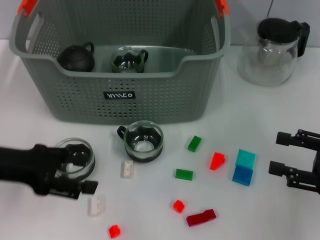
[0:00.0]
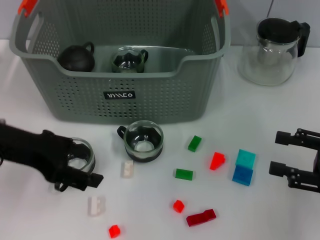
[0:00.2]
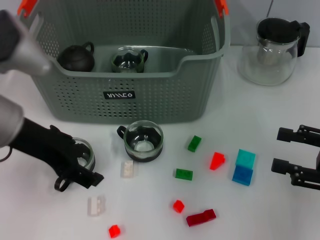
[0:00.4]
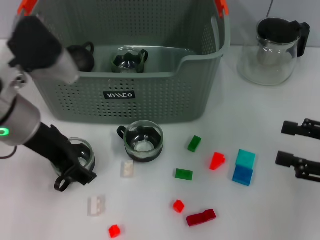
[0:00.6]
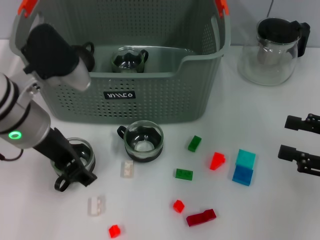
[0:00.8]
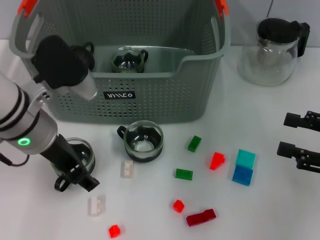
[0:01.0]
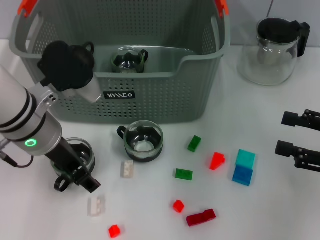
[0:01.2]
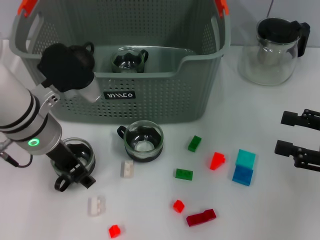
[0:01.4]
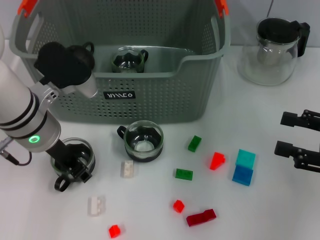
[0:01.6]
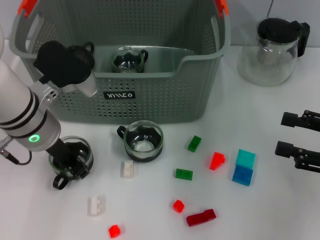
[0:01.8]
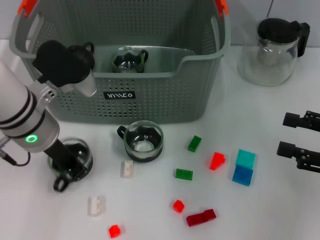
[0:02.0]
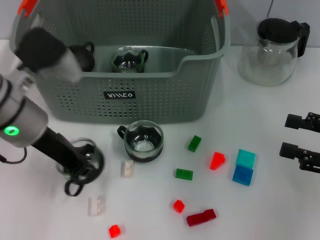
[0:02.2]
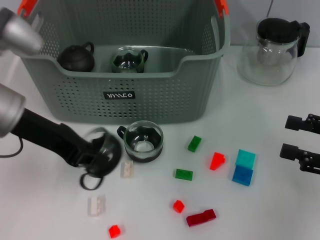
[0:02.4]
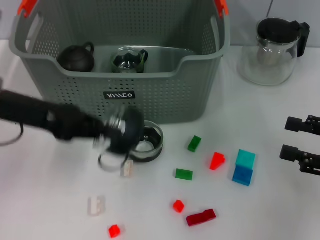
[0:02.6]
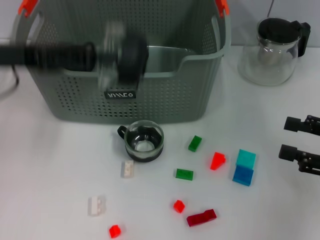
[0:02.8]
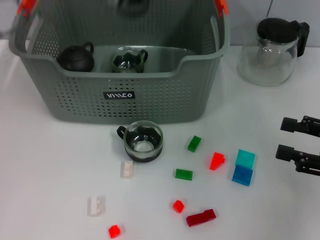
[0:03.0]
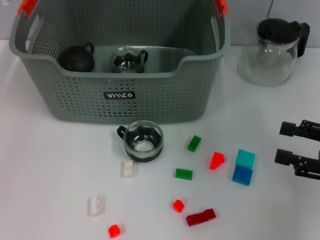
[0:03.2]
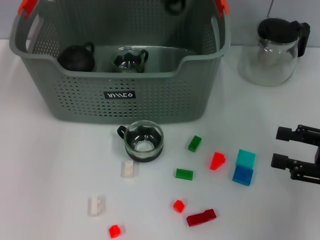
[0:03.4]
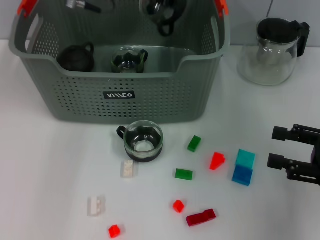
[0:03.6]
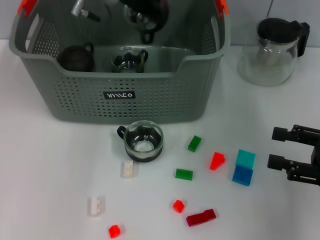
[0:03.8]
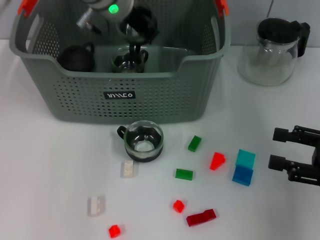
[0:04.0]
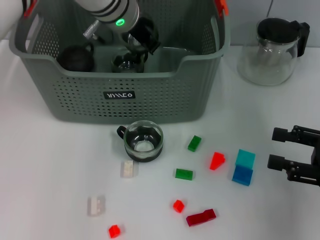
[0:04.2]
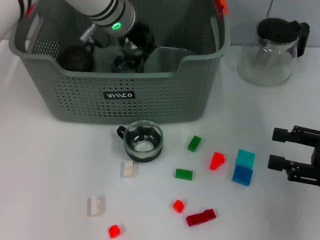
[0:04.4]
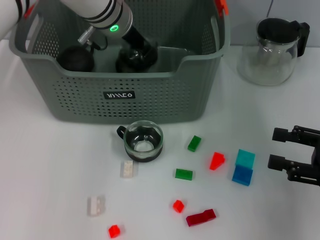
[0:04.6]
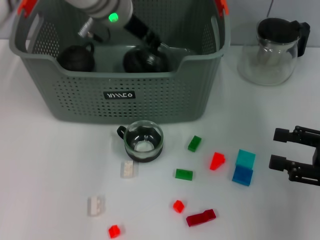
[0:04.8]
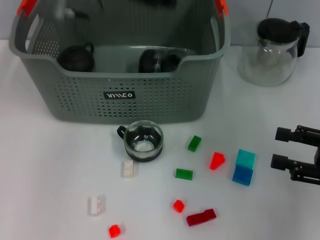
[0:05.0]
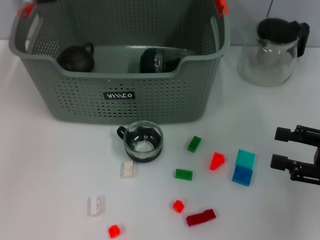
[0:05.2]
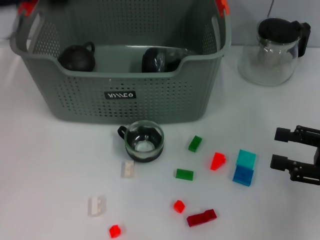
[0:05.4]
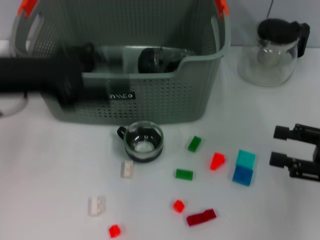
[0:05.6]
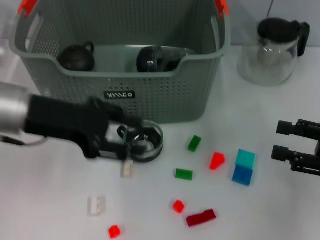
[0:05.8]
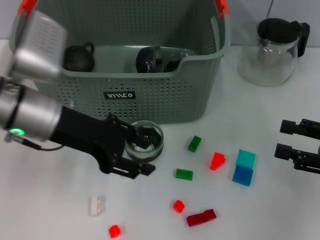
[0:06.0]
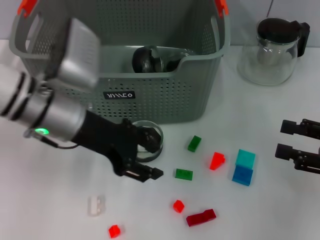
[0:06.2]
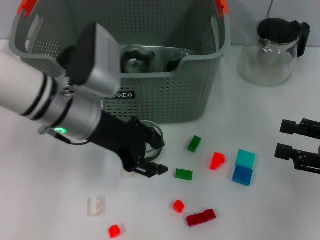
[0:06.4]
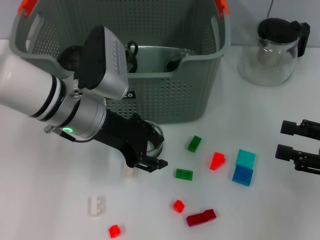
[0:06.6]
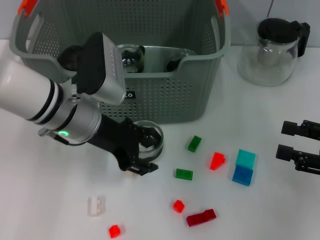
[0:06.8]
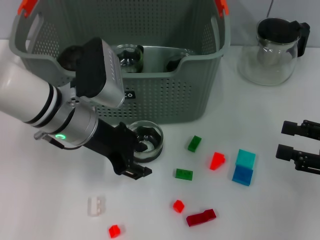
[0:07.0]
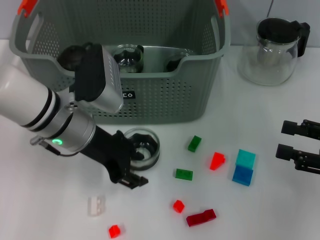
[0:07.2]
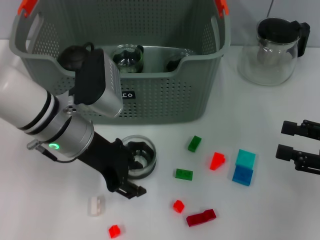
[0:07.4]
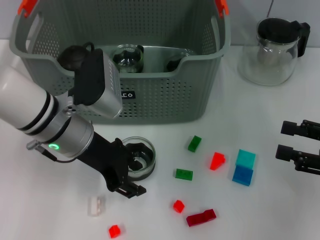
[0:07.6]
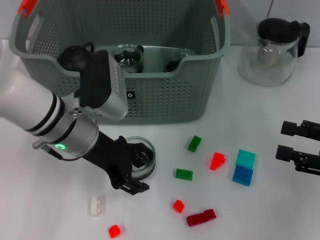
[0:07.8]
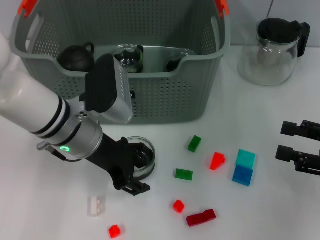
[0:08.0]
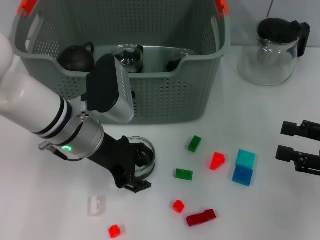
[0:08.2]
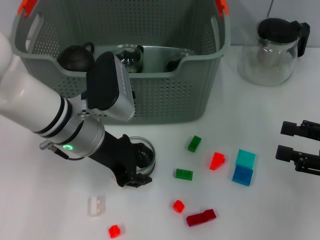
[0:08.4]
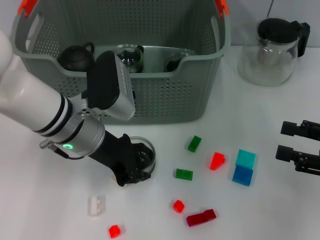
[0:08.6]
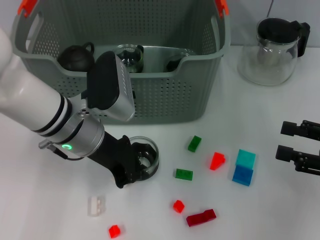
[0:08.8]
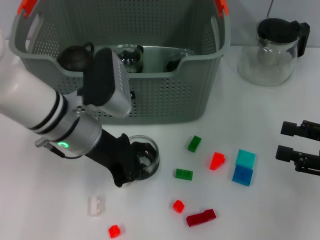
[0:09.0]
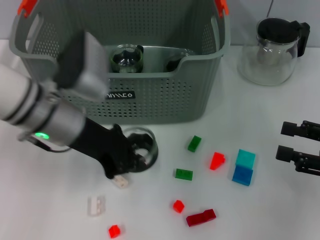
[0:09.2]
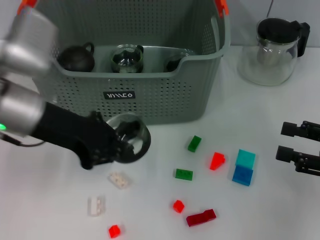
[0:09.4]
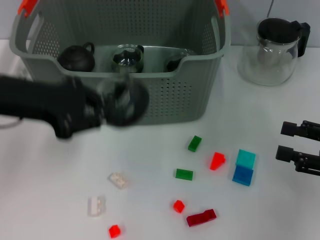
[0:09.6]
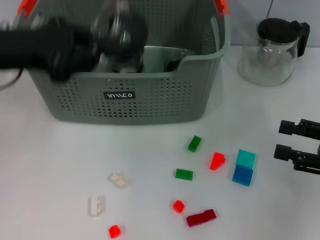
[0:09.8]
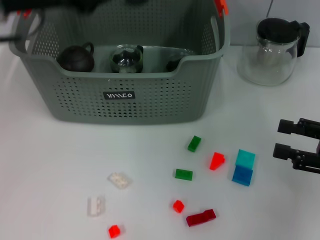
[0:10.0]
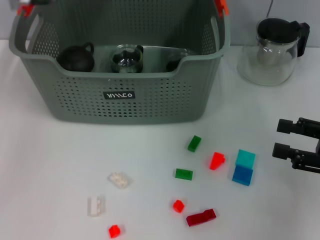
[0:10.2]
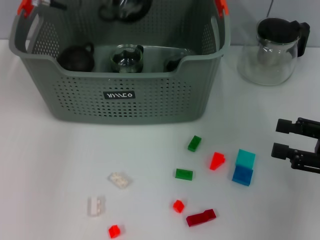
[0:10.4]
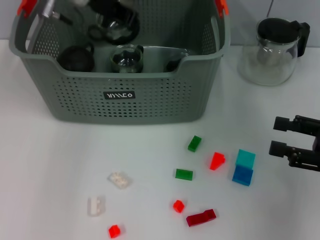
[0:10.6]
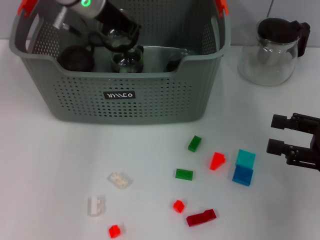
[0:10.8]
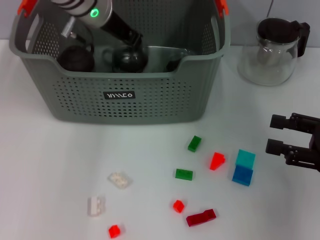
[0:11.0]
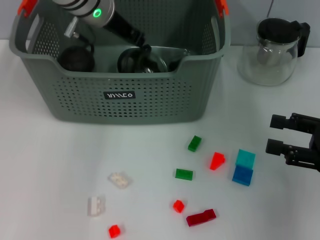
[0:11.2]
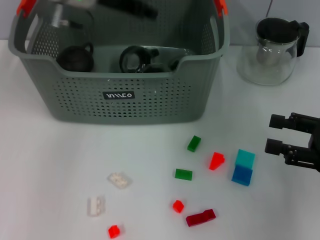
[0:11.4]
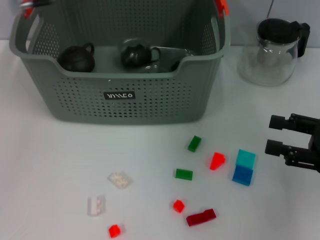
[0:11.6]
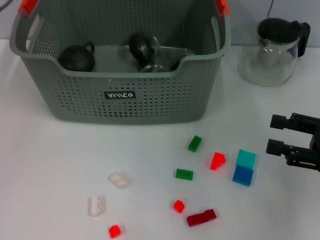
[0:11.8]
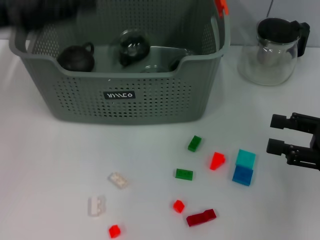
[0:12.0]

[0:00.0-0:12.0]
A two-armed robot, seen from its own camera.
Task of the whole recording: pick up the teacup on the table and place it into the storage bin, pick up the block on the table and place it into the storage bin.
Step, 0:00.0 to 0:01.8: Grasp the cup with left gripper.
Step, 0:02.0 to 0:04.8: Place the cup in the storage box with left gripper.
Step, 0:05.0 to 0:08.6: Grasp the cup with left gripper.
Step, 0:09.0 to 0:11.2: Place the cup in the storage box with left gripper.
0:00.0 to 0:01.6: The left gripper goes approximately 15 cm to the right and forward.
0:01.6 to 0:03.0: The left gripper goes roughly 15 cm upward and to the left, and closes its fingers.
0:03.0 to 0:04.4: The left gripper is displaced to the right and forward by some 20 cm.
0:04.4 to 0:06.0: The left gripper shifts approximately 20 cm backward and to the left, and opens up.
0:06.0 to 0:07.6: The left gripper changes place by some 5 cm.
0:07.6 to 0:09.0: The left gripper closes its fingers.
0:09.0 to 0:10.4: The left gripper is displaced upward and forward by about 20 cm.
0:10.4 to 0:12.0: The left gripper travels backward and to the left by about 20 cm, and opens.

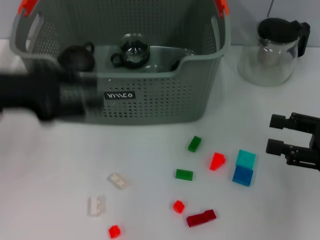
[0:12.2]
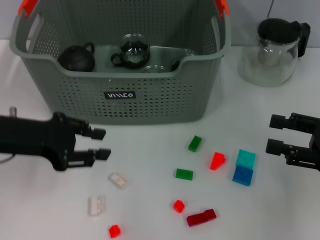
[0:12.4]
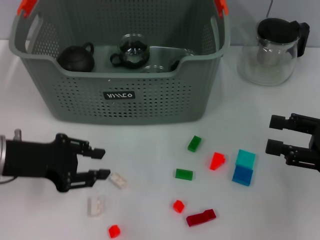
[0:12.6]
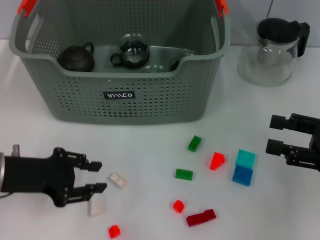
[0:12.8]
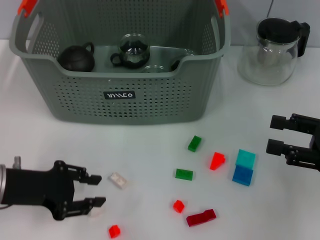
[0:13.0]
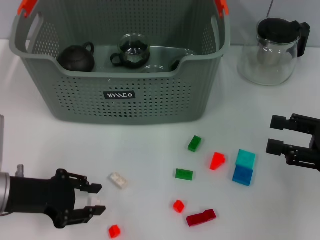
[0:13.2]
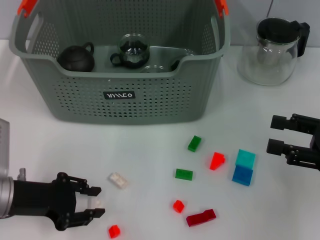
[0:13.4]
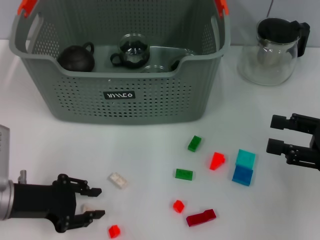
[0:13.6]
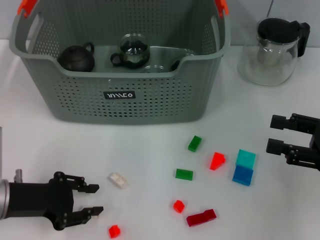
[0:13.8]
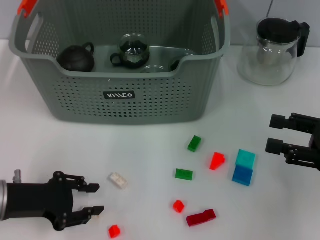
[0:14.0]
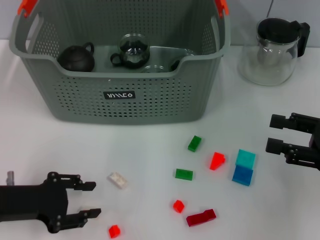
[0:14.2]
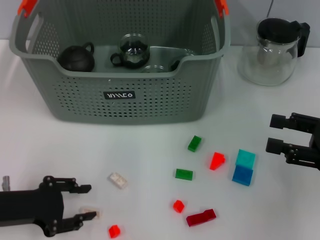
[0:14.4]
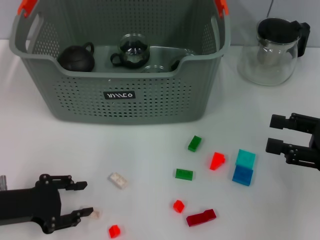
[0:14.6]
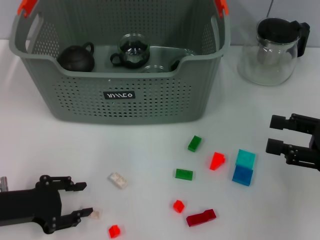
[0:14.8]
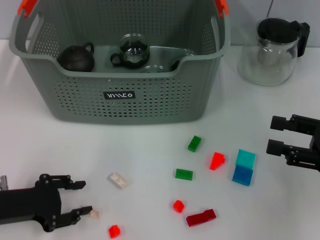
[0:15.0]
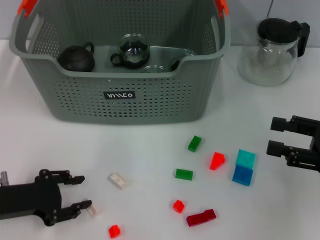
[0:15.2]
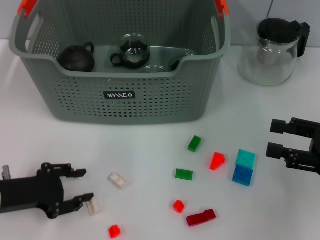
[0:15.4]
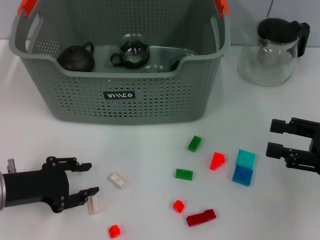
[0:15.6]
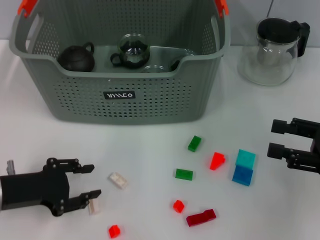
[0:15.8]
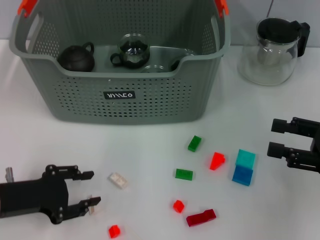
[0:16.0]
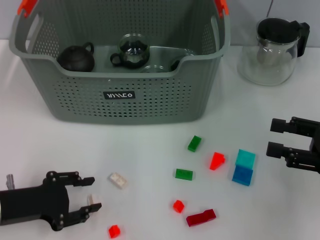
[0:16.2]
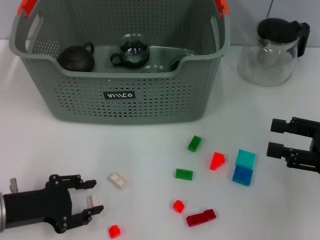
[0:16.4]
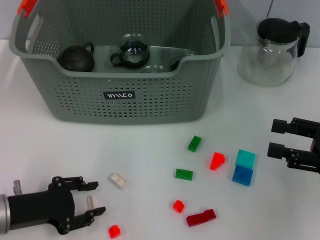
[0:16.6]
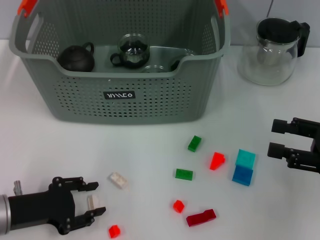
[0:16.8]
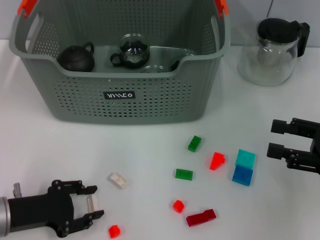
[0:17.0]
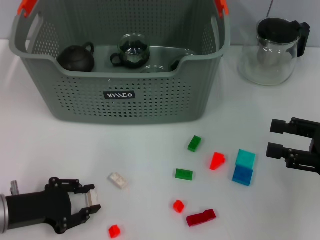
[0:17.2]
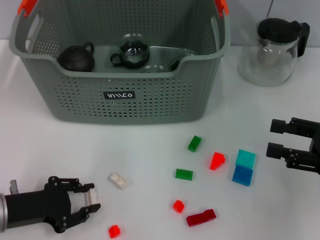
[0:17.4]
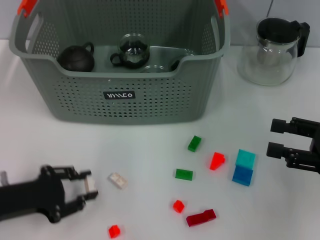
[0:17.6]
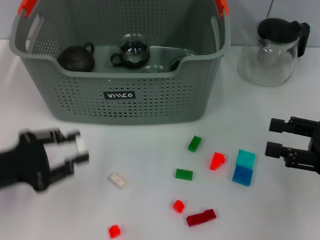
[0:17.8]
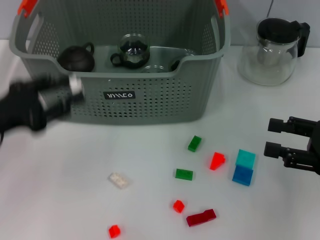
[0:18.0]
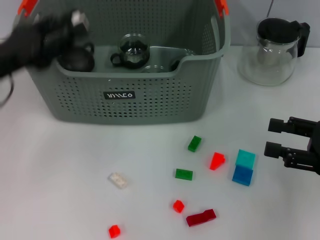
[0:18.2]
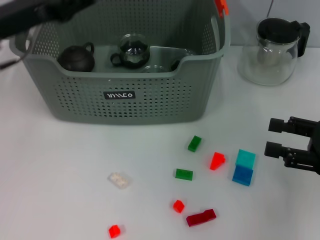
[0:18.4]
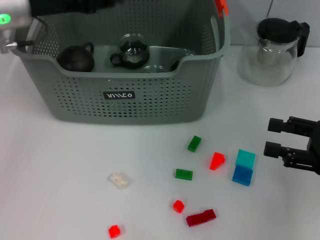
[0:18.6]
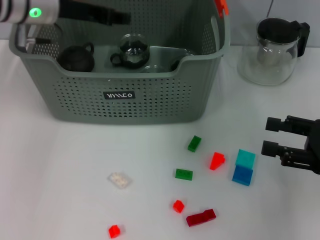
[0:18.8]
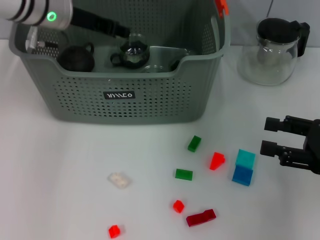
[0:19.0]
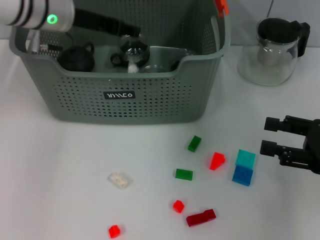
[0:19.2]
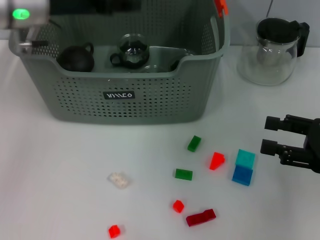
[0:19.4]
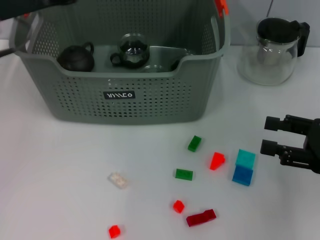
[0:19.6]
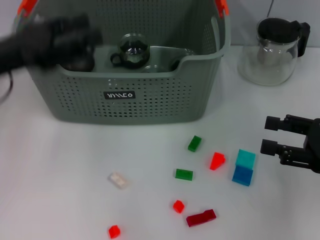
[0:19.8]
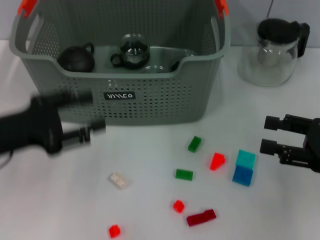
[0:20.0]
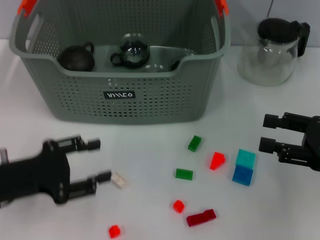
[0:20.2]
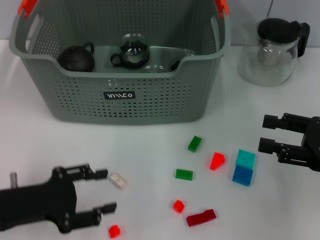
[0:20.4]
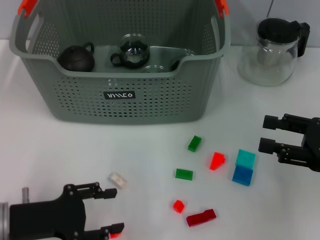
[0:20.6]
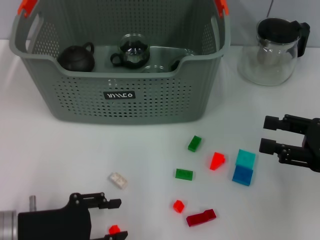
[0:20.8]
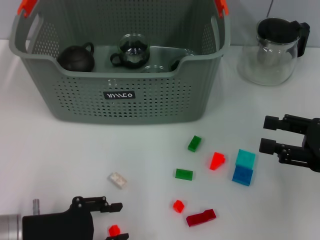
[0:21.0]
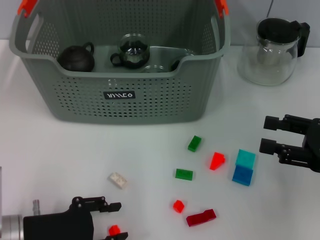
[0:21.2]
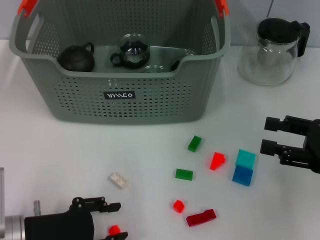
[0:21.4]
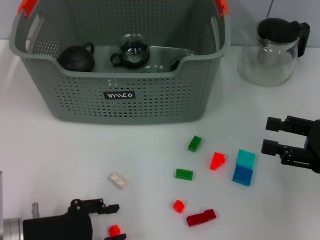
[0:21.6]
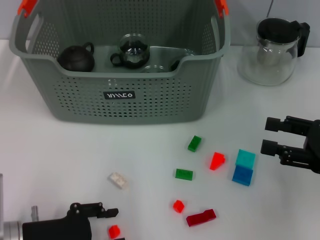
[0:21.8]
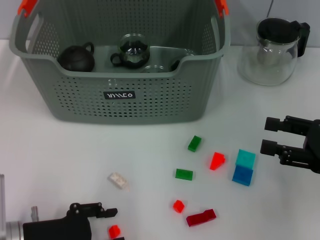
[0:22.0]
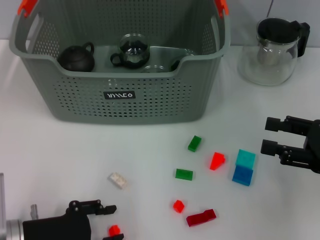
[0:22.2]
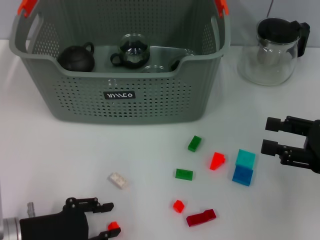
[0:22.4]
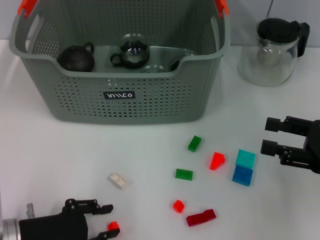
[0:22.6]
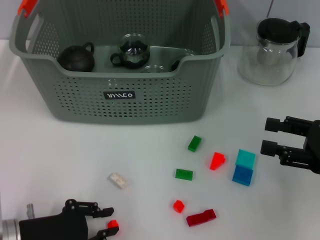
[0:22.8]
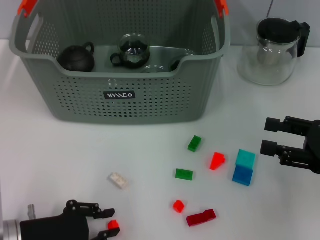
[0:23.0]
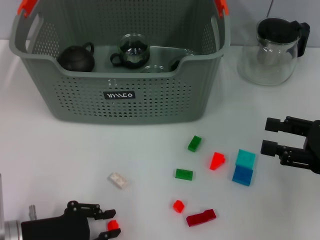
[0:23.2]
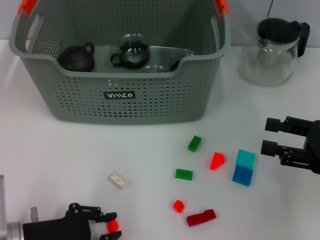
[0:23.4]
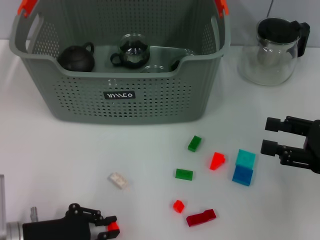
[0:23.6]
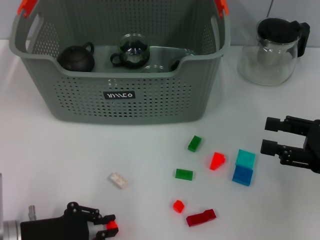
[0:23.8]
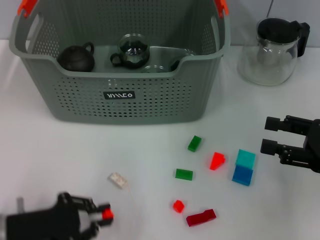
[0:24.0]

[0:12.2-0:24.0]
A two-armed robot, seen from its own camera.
Task of the whole recording: pick up the teacup on the table and place it into the storage bin, pick up the block on the table and place it into the storage bin.
Step, 0:12.2 to 0:17.2: Grasp the white block with left gripper.
Step, 0:17.4 to 0:19.2: Place the white block in the storage box with left gripper.
Step, 0:19.4 to 0:23.6: Grasp the orange block with left gripper.
0:12.2 to 0:13.6: The left gripper is displaced downward and backward by approximately 15 cm.
0:13.6 to 0:16.6: The grippers move only a little.
0:16.6 to 0:18.2: The left gripper shifts some 15 cm upward and forward.
0:18.2 to 0:19.6: The left gripper is displaced upward and forward by some 10 cm.
0:19.6 to 0:21.0: The left gripper shifts some 25 cm downward and backward.
0:21.0 to 0:22.6: The grippers move only a little.
0:22.6 to 0:24.0: The left gripper closes.
